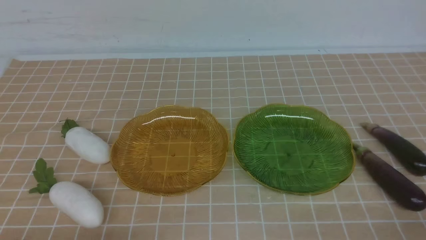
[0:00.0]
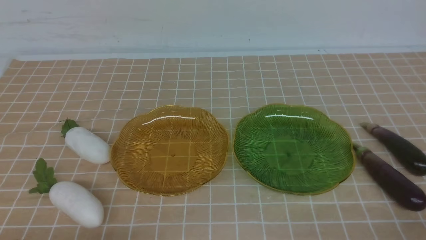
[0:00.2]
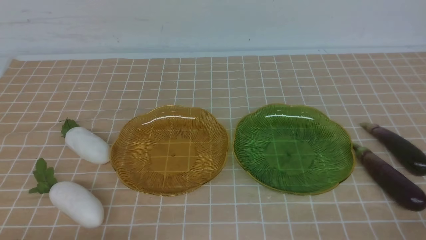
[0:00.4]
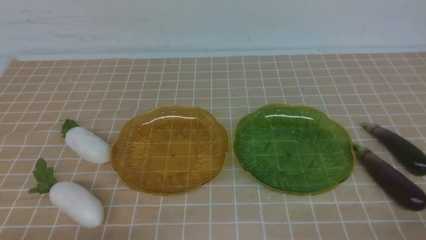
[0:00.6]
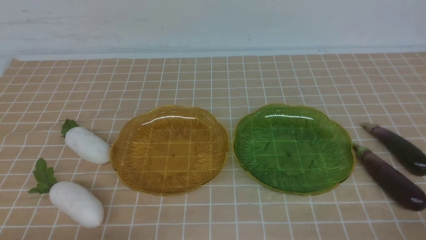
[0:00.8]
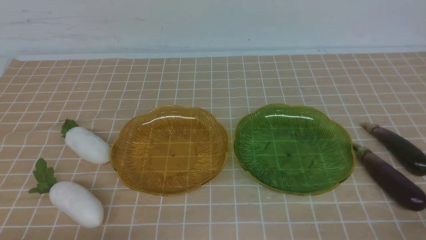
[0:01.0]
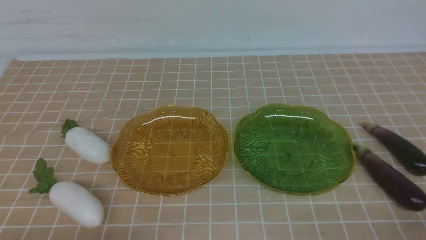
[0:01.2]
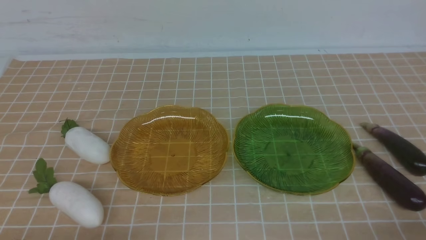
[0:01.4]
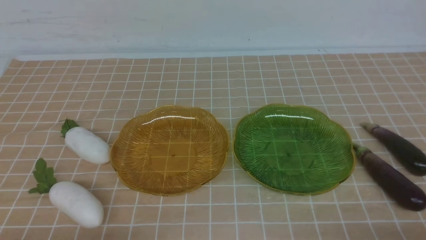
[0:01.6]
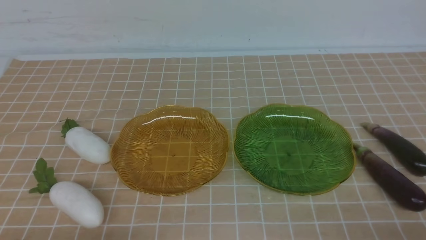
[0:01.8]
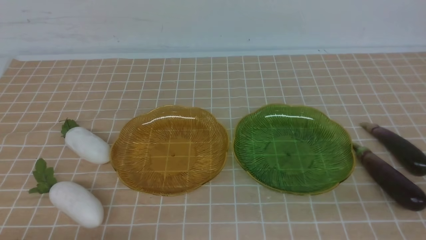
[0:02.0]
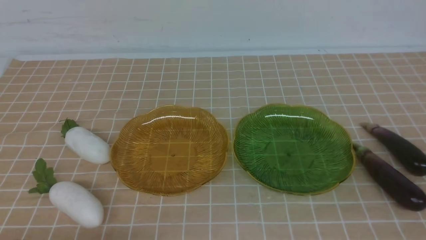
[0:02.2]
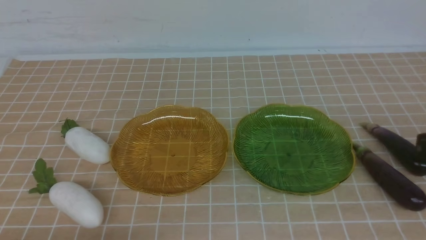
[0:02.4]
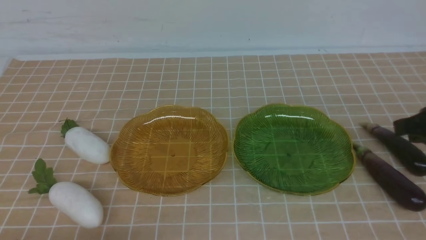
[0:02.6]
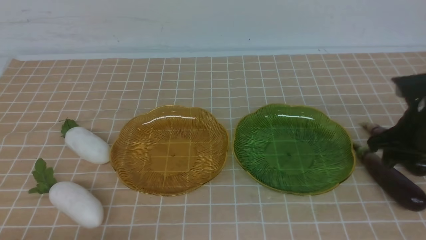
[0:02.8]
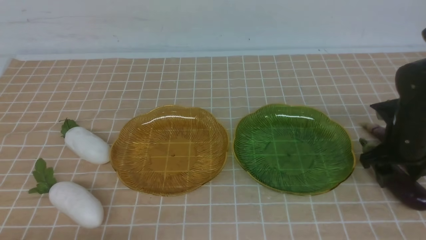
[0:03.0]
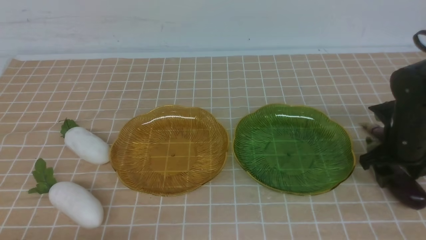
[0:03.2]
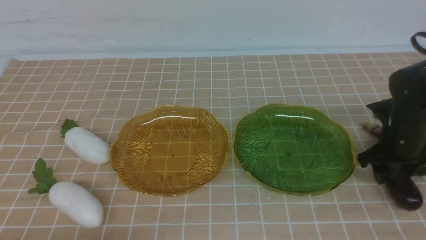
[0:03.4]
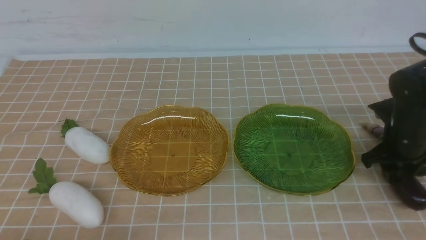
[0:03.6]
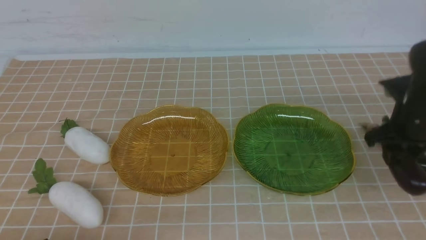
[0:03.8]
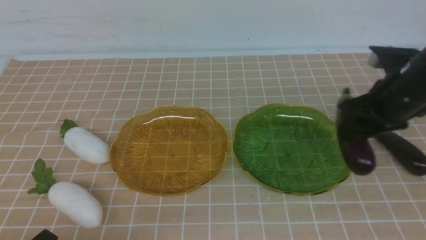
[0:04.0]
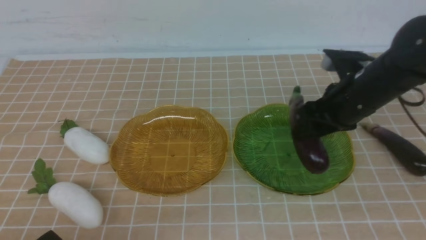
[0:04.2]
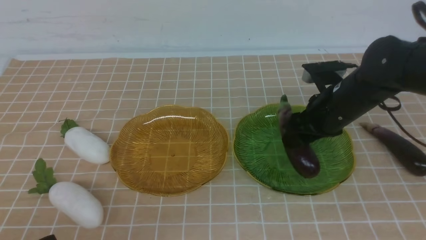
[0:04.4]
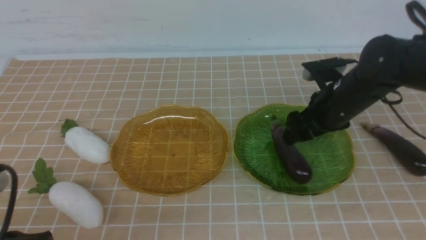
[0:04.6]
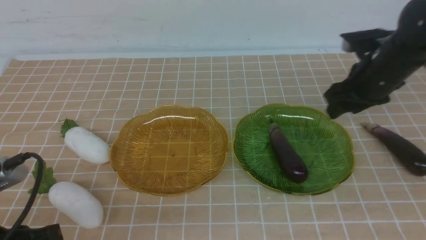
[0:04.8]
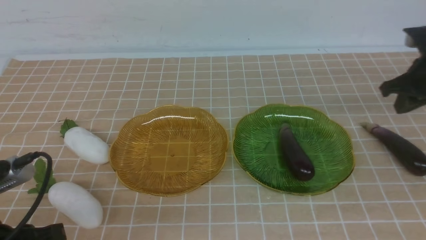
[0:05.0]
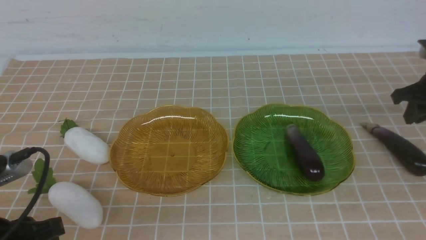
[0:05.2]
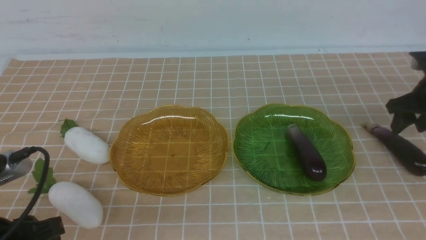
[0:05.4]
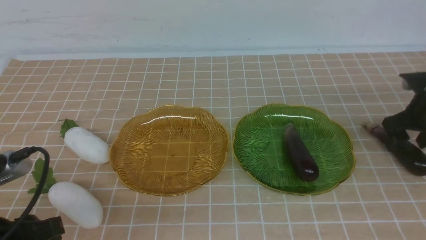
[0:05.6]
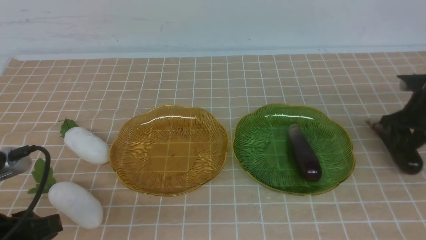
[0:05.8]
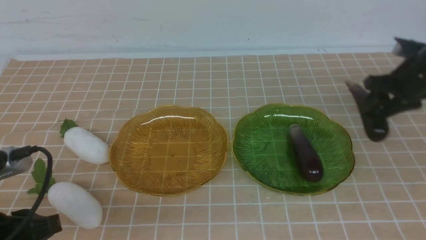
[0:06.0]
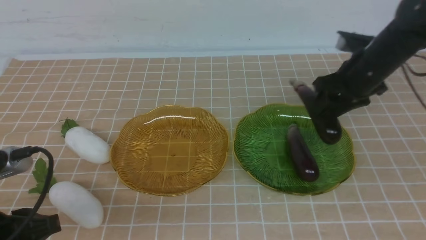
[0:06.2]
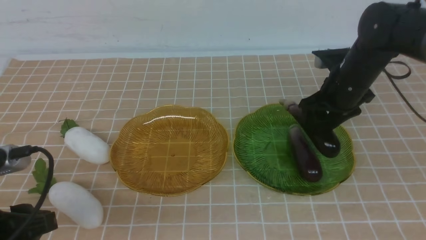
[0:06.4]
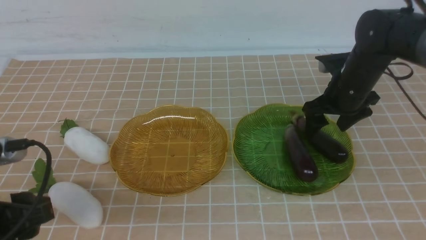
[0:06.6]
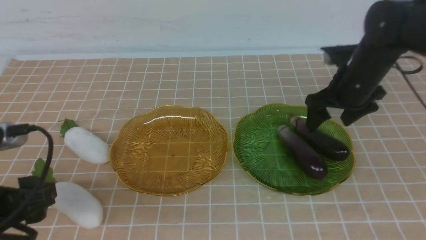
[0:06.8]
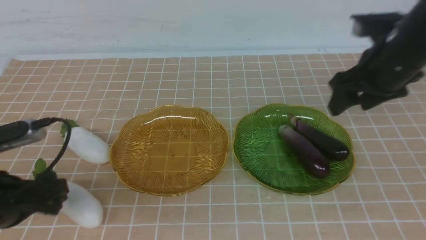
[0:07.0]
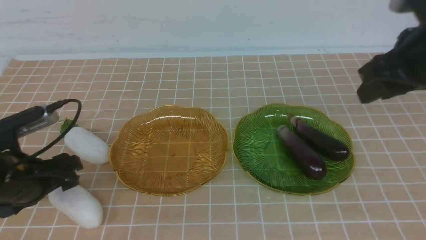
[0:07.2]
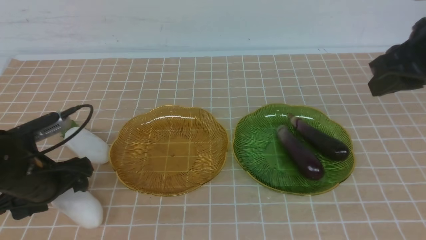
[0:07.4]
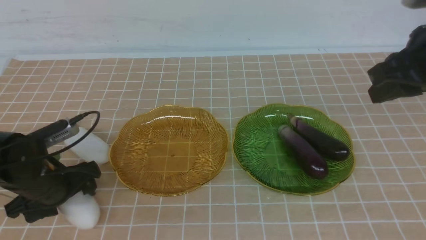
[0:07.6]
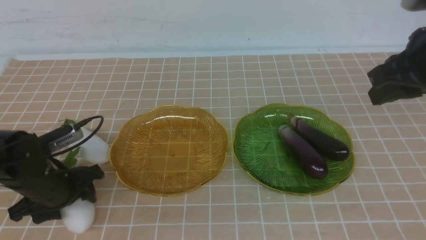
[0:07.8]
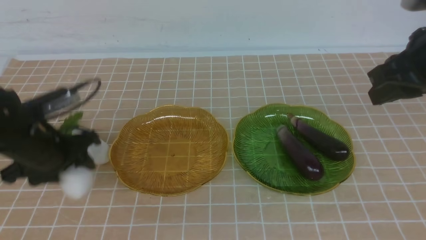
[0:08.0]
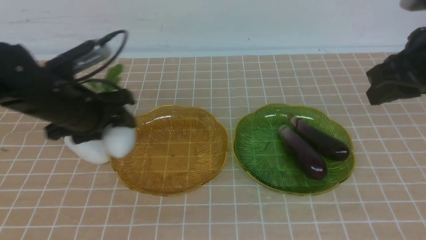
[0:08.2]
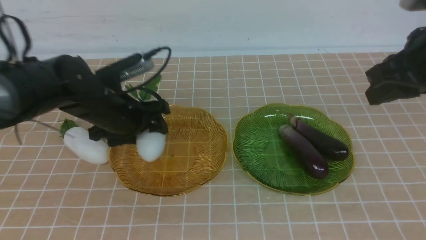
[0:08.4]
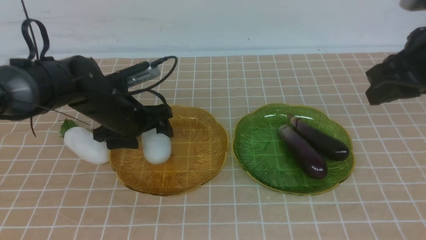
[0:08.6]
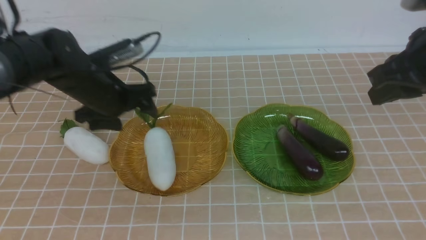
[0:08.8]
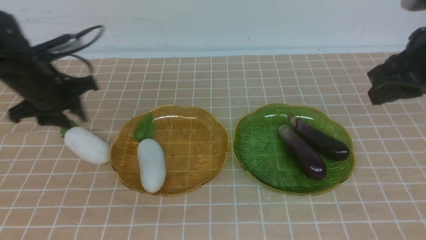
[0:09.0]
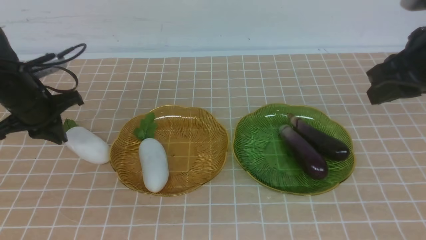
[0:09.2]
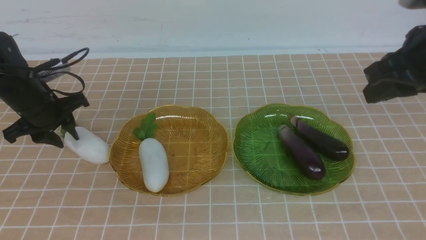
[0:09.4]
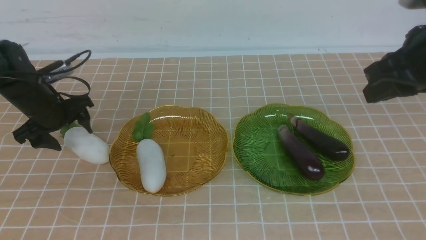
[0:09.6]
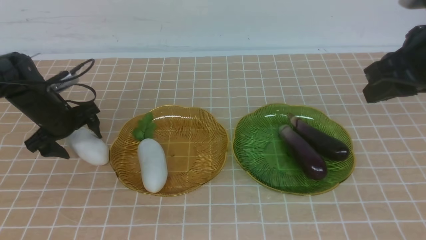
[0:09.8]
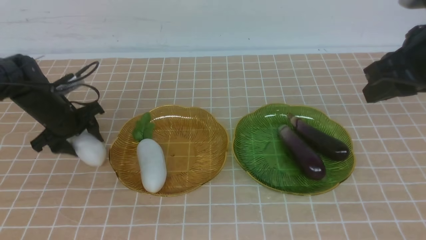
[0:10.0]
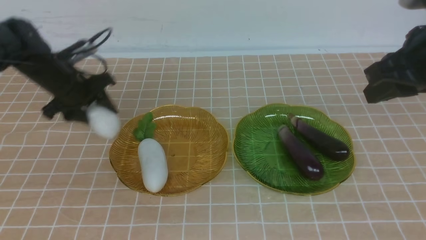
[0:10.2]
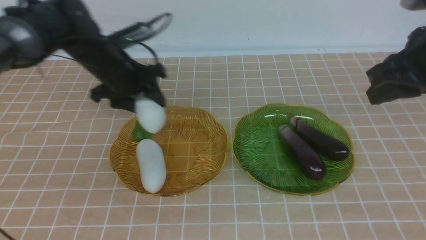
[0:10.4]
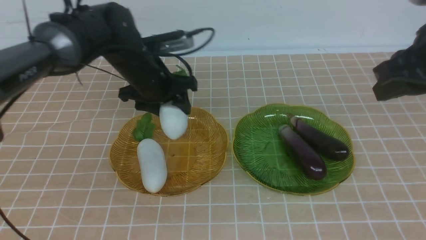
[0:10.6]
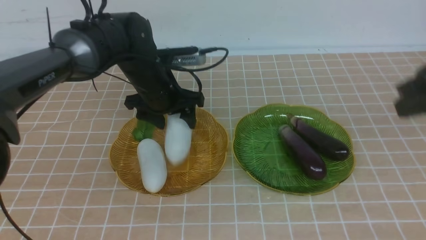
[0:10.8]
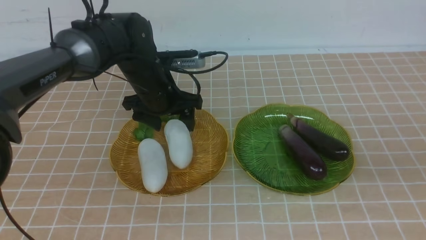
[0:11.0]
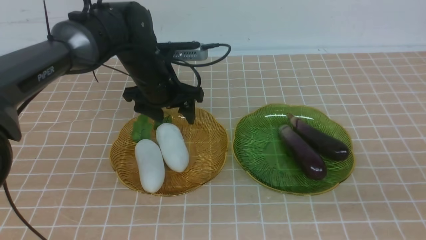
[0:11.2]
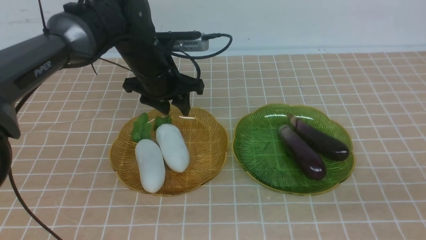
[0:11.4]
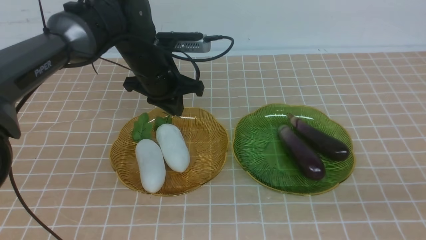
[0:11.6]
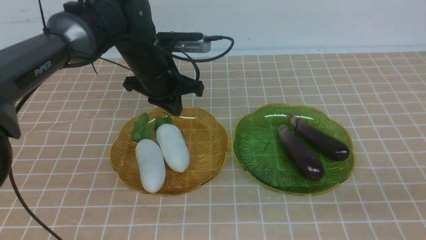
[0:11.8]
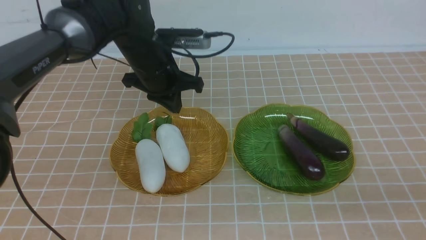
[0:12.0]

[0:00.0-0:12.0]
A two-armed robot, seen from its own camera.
Step, 0:00.0 to 0:06.6: use the right arm to grab an eggplant and put it into the right plate.
Step, 0:06.8 to 0:11.4: use the left arm to grab a radish and put it into the left plate.
0:01.6 to 0:03.0: The right gripper shifts approximately 30 cm forward, and opens up.
0:03.0 to 0:04.4: The right gripper moves upward, roughly 10 cm, and goes to the left and returns, about 10 cm each way.
0:04.4 to 0:06.0: The right gripper goes to the right and returns, about 10 cm each way.
0:06.0 to 0:07.6: The right gripper is displaced backward and upward by approximately 20 cm, and opens and closes again. The left gripper moves forward and downward, roughly 15 cm, and opens up.
0:07.6 to 0:09.0: The left gripper shifts some 15 cm forward and upward, and closes up.
0:09.0 to 0:10.4: The right gripper shifts roughly 15 cm backward, while the left gripper moves to the right, approximately 20 cm, and opens its fingers.
0:10.4 to 0:12.0: The right gripper heads downward and backward, covering about 20 cm, while the left gripper goes approximately 15 cm upward, and closes up.

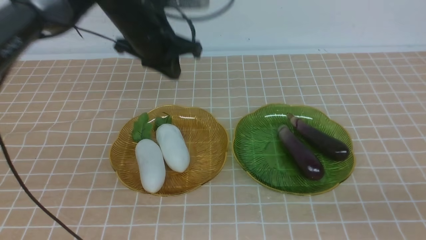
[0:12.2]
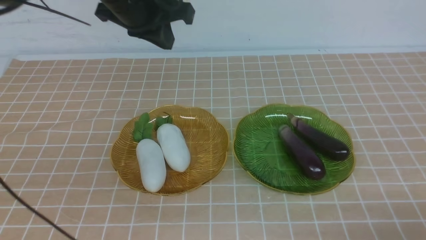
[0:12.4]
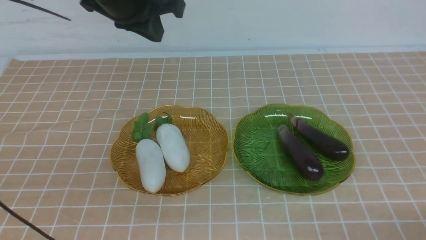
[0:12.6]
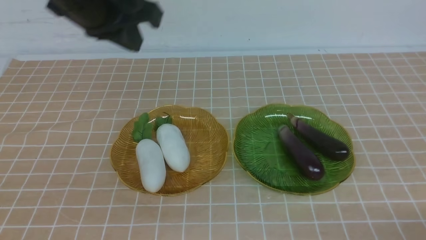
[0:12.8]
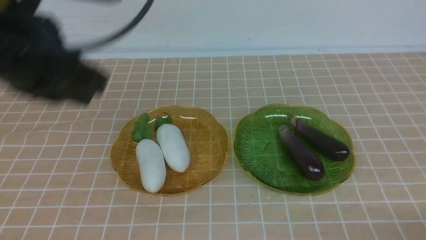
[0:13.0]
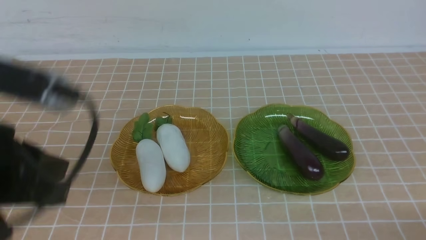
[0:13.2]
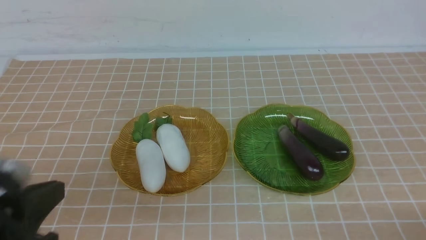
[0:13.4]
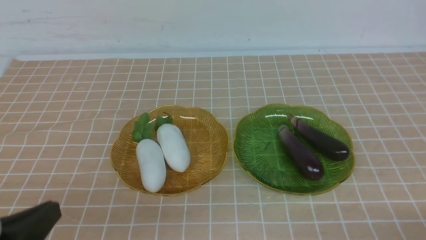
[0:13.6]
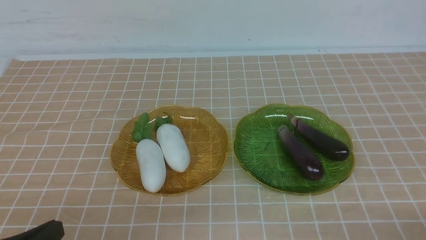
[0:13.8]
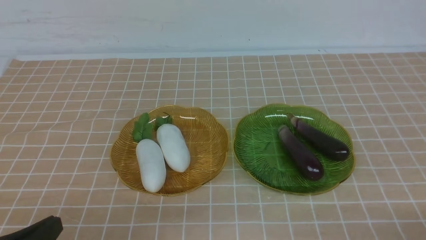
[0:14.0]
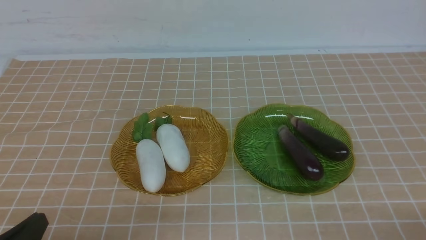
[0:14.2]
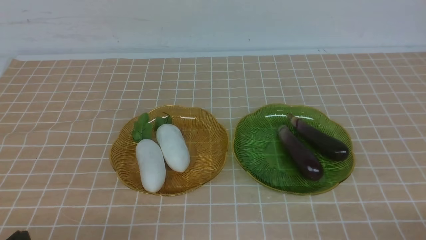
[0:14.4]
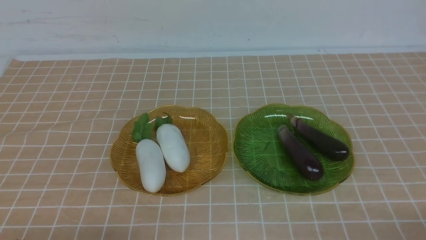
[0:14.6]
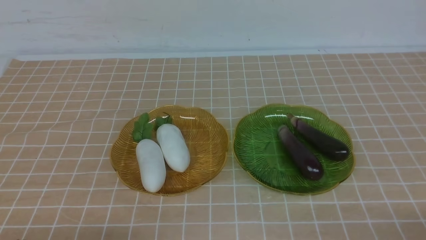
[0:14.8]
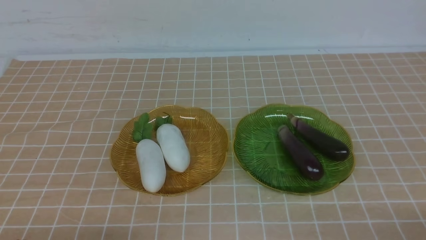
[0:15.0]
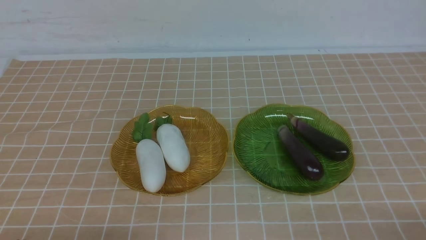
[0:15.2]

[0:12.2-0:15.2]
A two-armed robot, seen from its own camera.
0:12.2 to 0:13.8: The left gripper travels backward, downward and to the left by some 40 cm.
0:13.8 to 0:15.2: Both grippers stay put.
